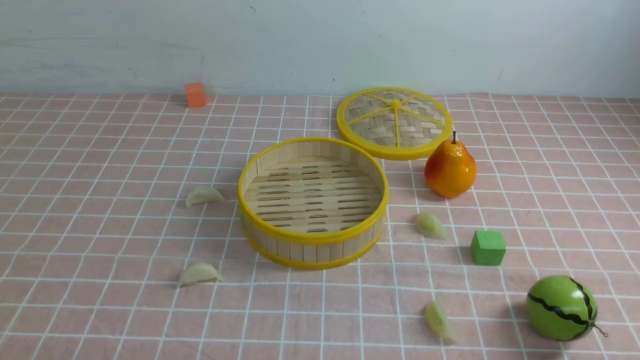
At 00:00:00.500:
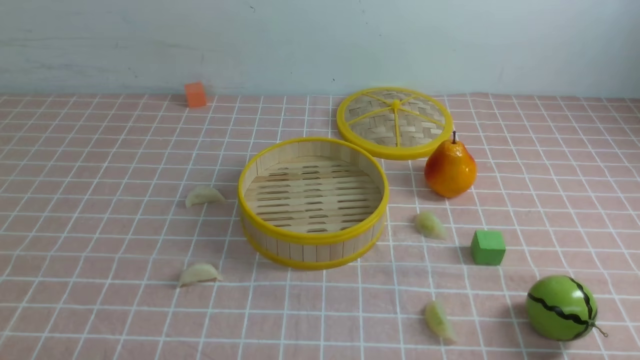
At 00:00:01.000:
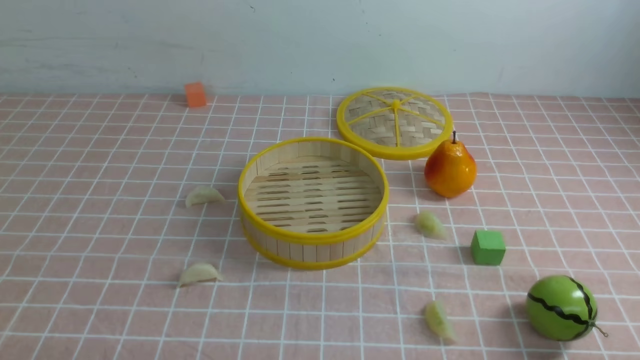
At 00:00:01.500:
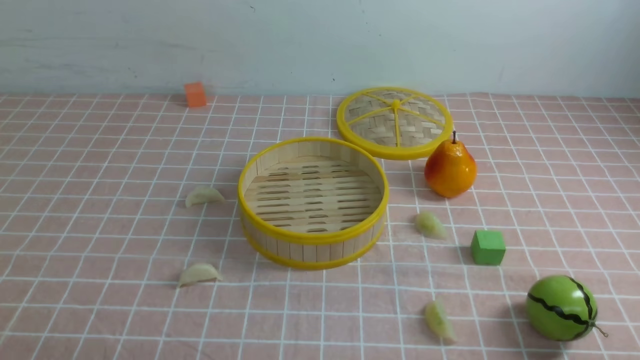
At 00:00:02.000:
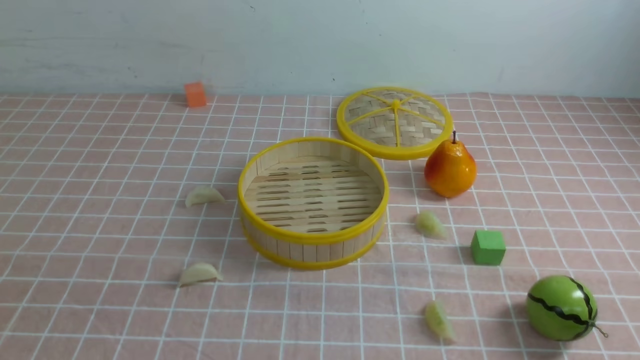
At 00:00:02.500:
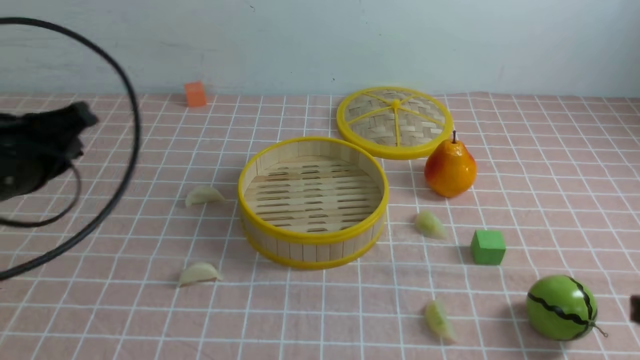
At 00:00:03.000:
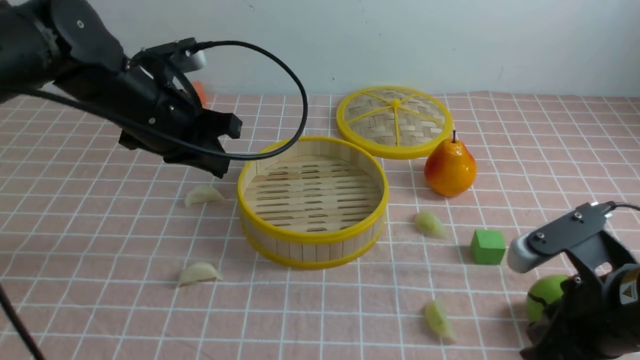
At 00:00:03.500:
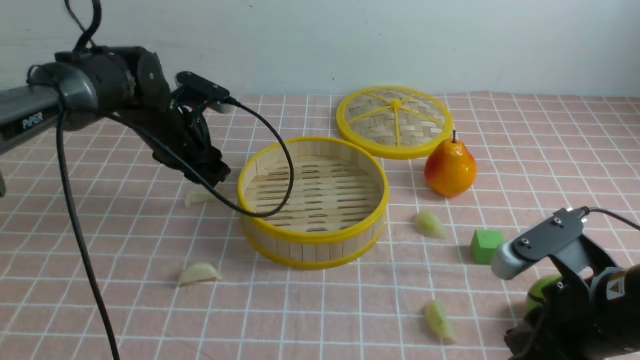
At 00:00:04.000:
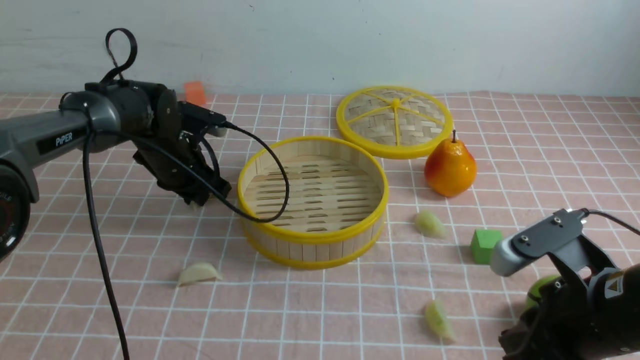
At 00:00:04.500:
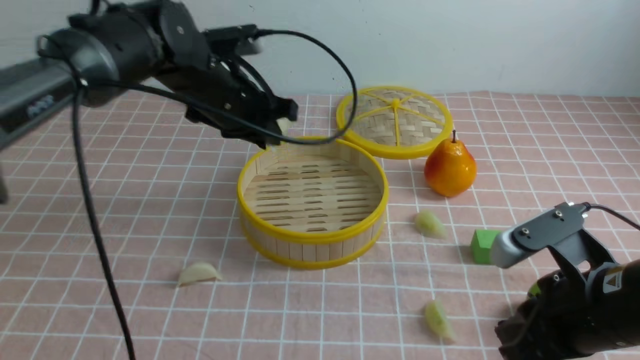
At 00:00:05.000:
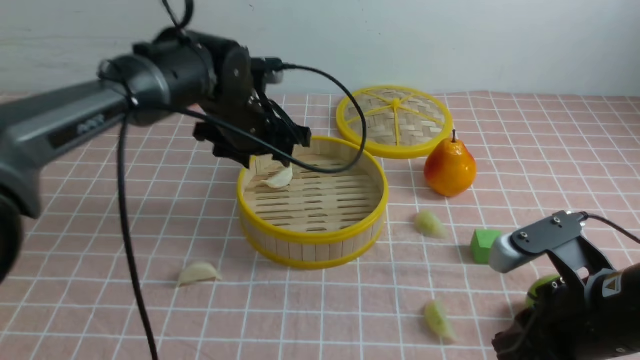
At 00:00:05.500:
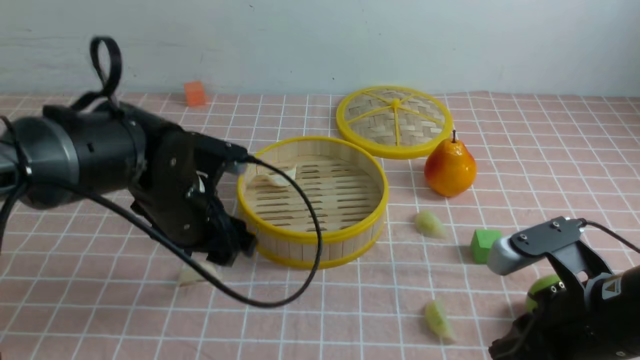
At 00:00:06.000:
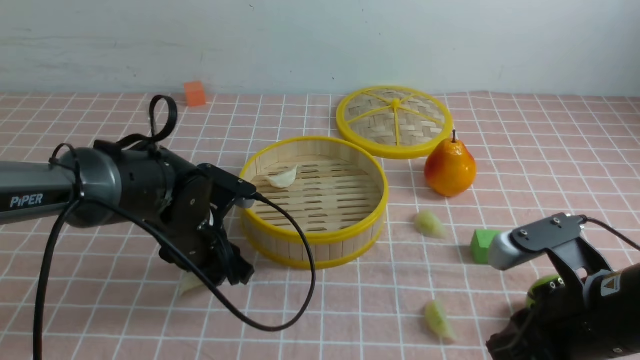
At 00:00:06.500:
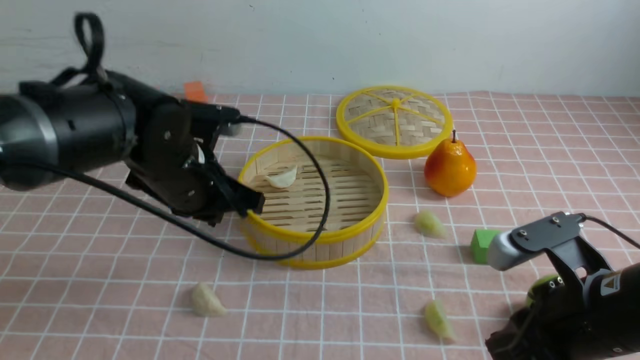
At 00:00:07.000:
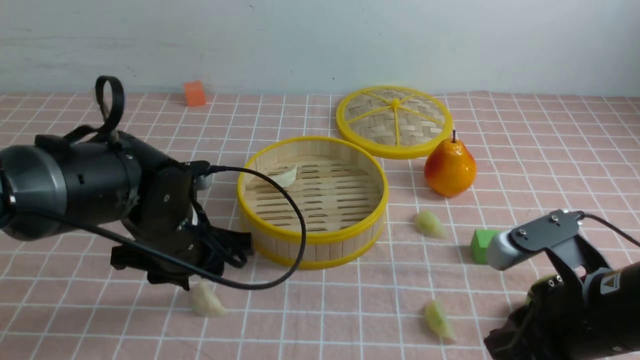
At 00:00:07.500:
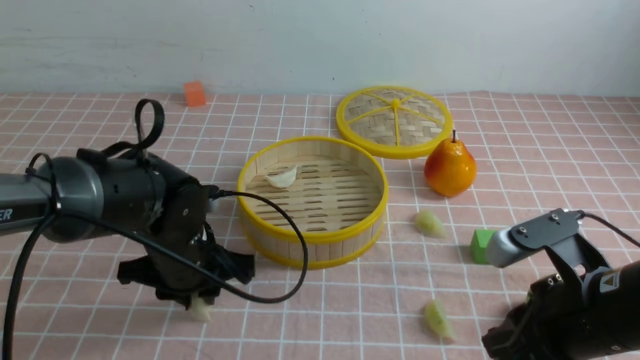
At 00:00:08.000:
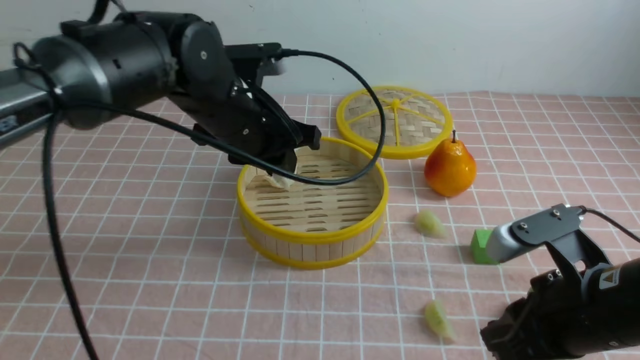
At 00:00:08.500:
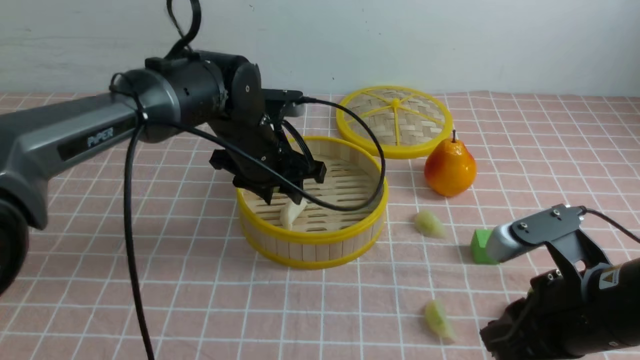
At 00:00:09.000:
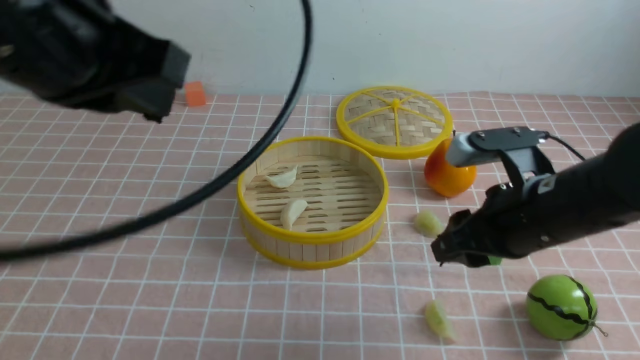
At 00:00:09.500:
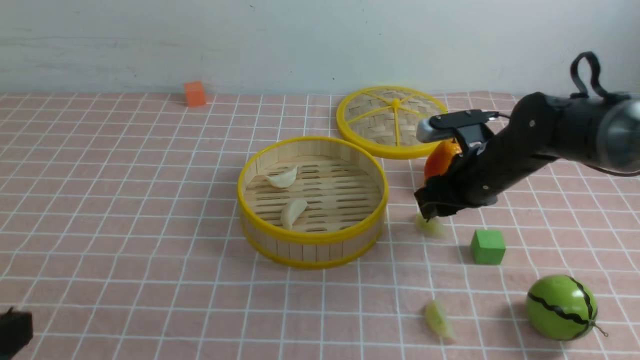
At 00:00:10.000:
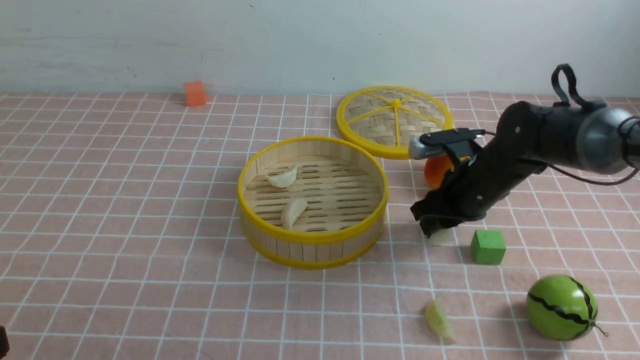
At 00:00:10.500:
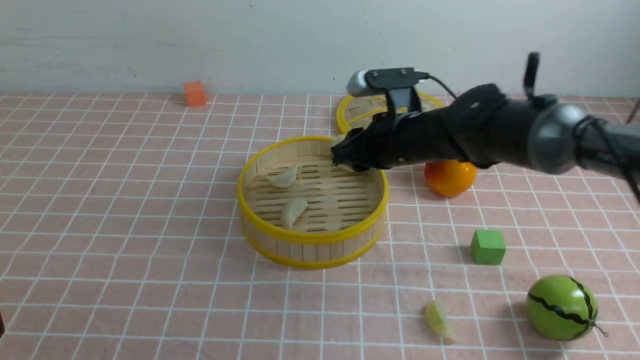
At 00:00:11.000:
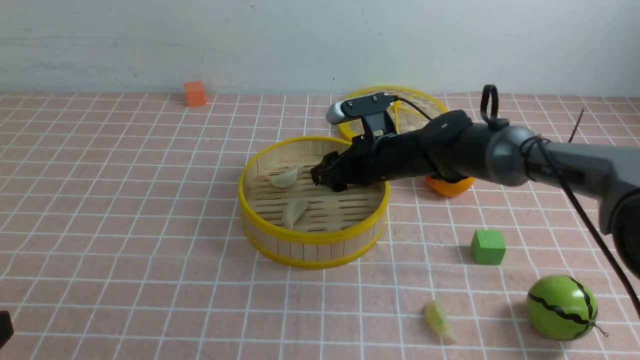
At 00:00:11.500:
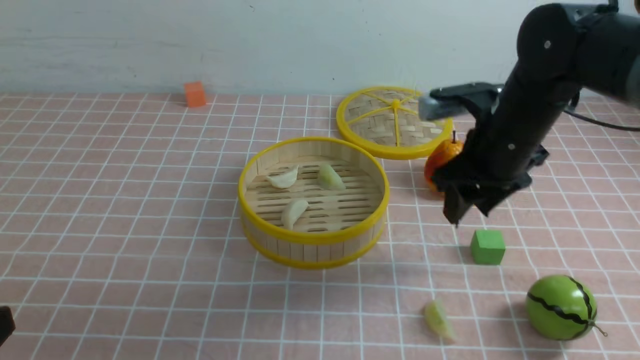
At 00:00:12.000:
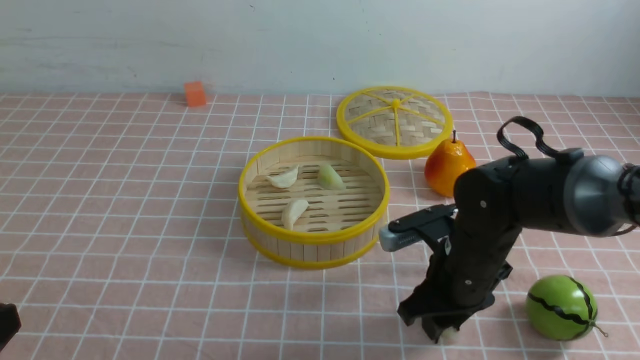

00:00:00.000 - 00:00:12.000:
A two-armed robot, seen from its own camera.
Task of the whole recording: put the dumplings into the steamer on the table with the pink tablecloth.
Step, 00:00:00.000 - 00:00:04.000: use the left arm to grab a dumpling.
Step, 00:00:04.500 - 00:00:05.000: use the left arm to put the dumpling into the steamer.
Step, 00:00:05.500 - 00:00:07.500: use the left arm to grab a dumpling.
Step, 00:00:08.000 - 00:00:08.500: use the left arm to put the dumpling into the steamer.
Step, 00:00:09.000 - 00:00:10.000: use the right arm to grab a dumpling.
Step, 00:00:10.500 - 00:00:11.000: use the right arm to put the dumpling into the steamer.
00:00:02.000 - 00:00:04.000: The right gripper is displaced forward, to the left and downward by about 20 cm, while the left gripper heads forward, covering about 40 cm.
00:00:04.000 - 00:00:06.000: The left gripper heads backward and to the right, covering some 15 cm, and opens, then closes once more.
00:00:06.000 - 00:00:08.000: The left gripper swings up and down, some 10 cm each way, with 2 reversals, and closes and opens again.
00:00:08.000 - 00:00:10.000: The left gripper is displaced backward and to the left by approximately 35 cm, and closes its fingers; the right gripper travels forward by some 20 cm.
00:00:10.000 - 00:00:12.000: The right gripper shifts some 10 cm backward.

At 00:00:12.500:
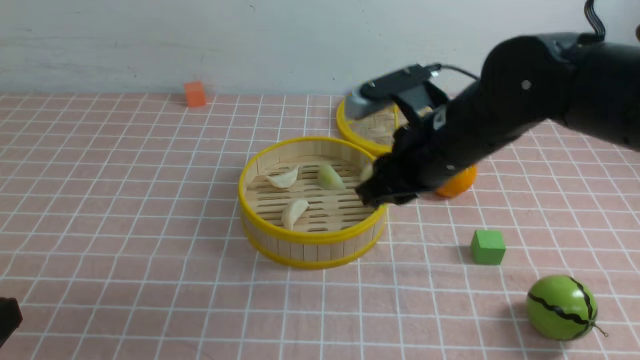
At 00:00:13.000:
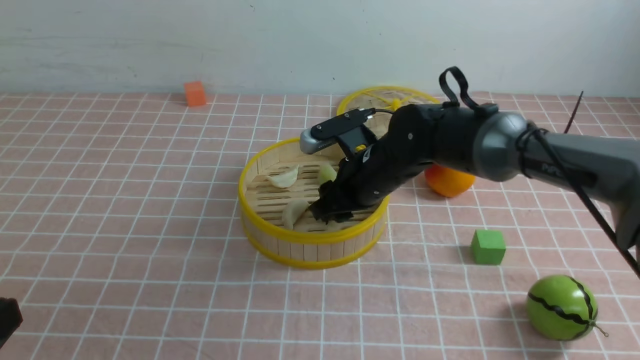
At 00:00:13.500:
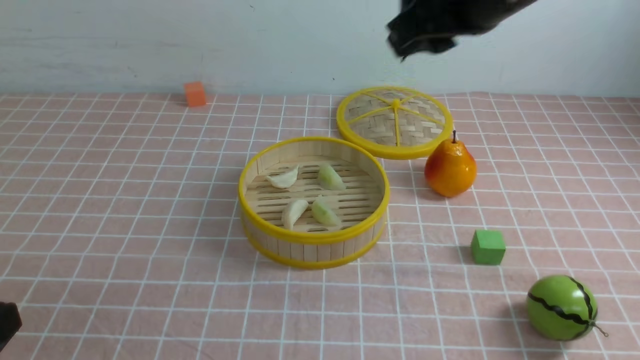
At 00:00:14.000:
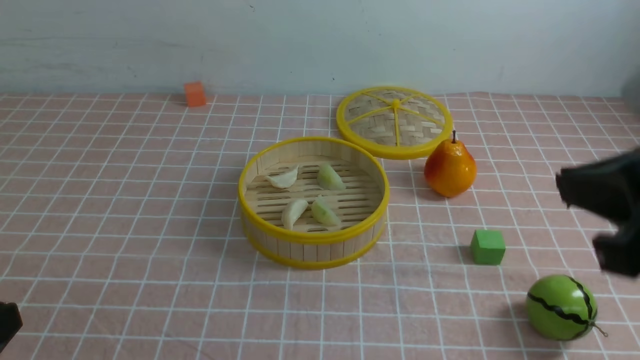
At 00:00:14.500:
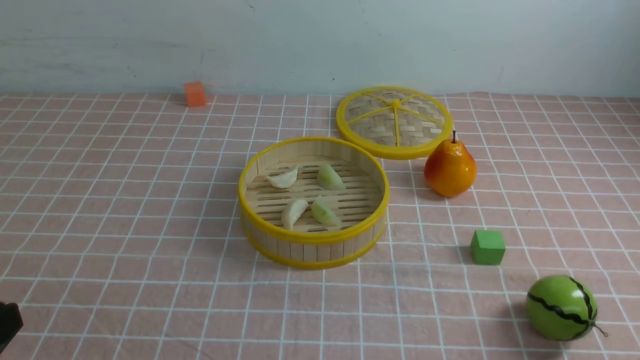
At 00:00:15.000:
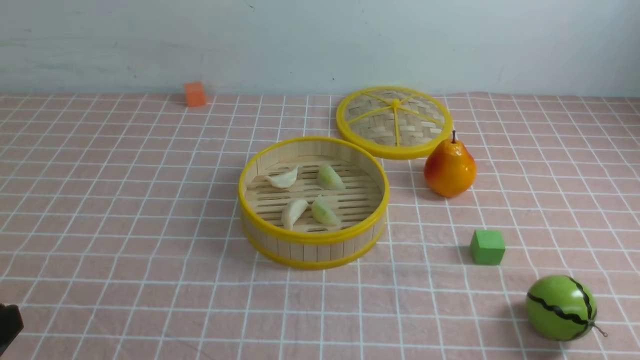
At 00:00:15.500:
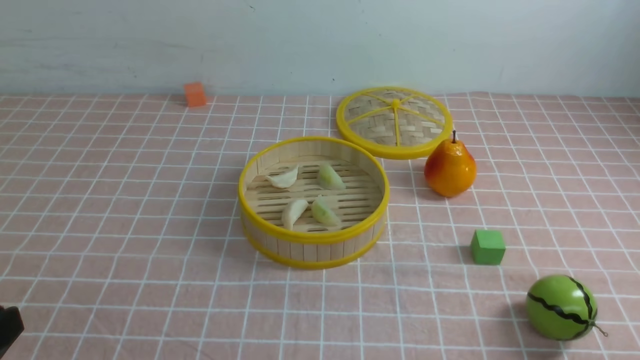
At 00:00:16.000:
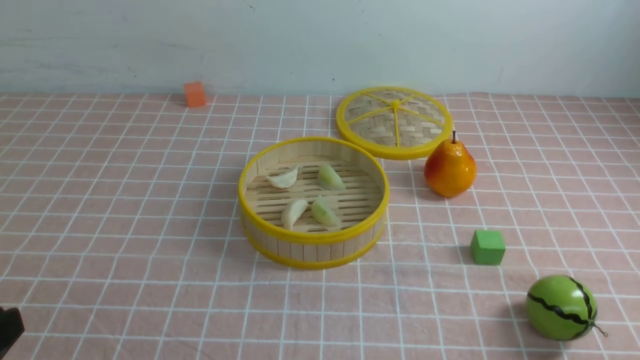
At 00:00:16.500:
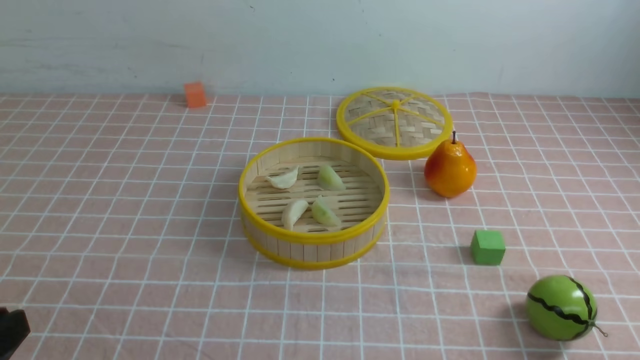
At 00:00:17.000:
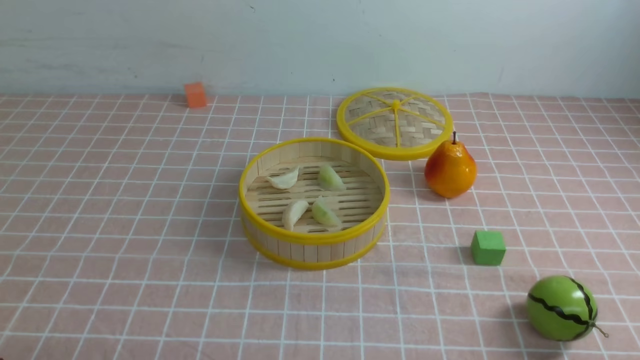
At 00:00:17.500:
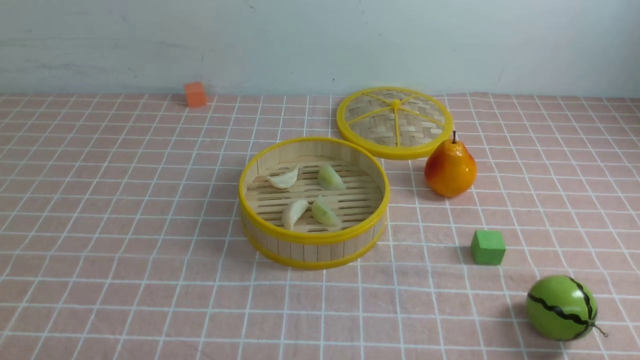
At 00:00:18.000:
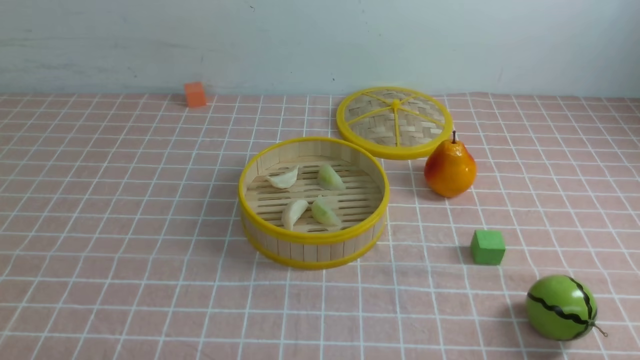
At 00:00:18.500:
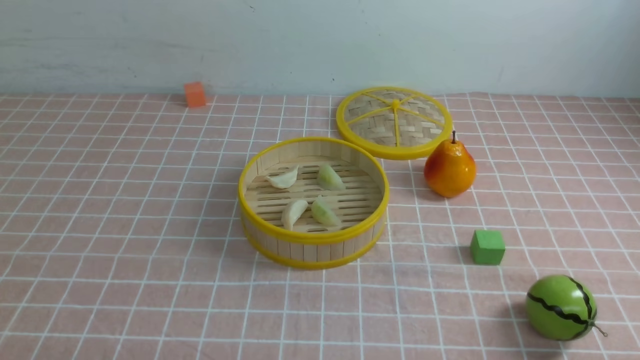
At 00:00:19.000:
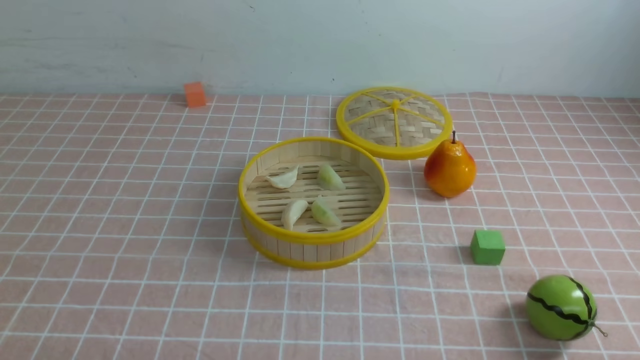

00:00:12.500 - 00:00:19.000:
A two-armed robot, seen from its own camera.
Task of the whole recording: put the dumplings into the steamer on the table with the pink tablecloth.
Step, 00:00:12.500 - 00:00:13.500: use the right arm to put the dumpling into the steamer.
00:00:12.500 - 00:00:14.500: The right gripper heads backward and to the right, covering some 30 cm, and closes its fingers.
00:00:14.500 - 00:00:17.000: The left gripper goes some 10 cm downward.

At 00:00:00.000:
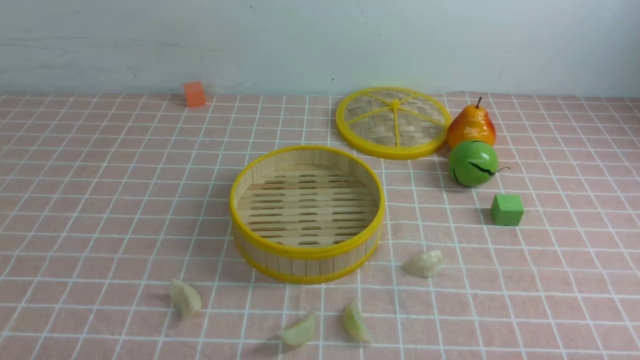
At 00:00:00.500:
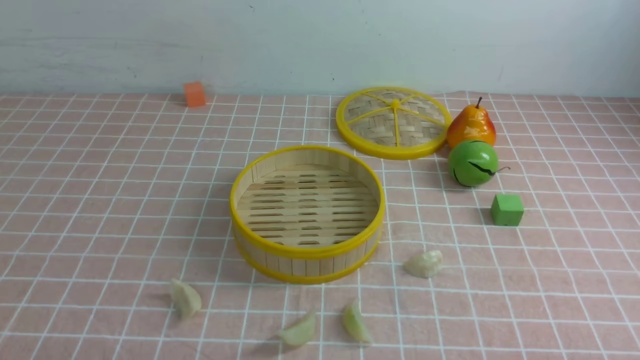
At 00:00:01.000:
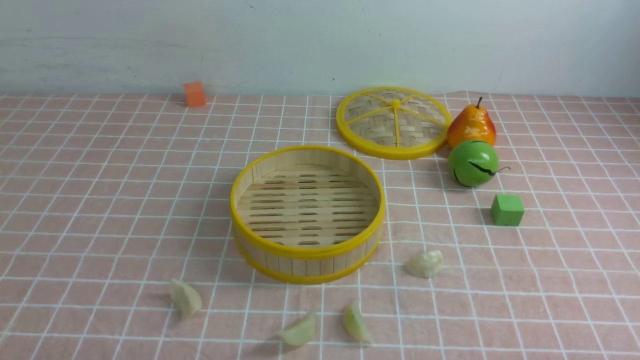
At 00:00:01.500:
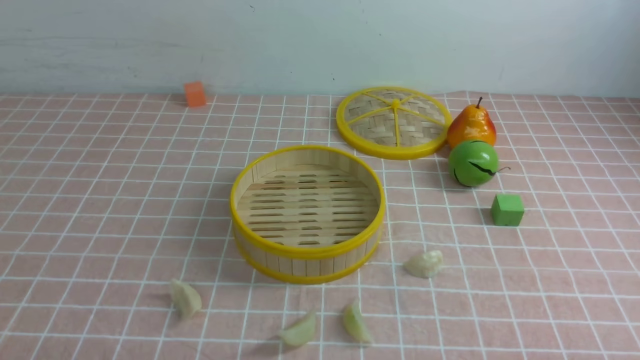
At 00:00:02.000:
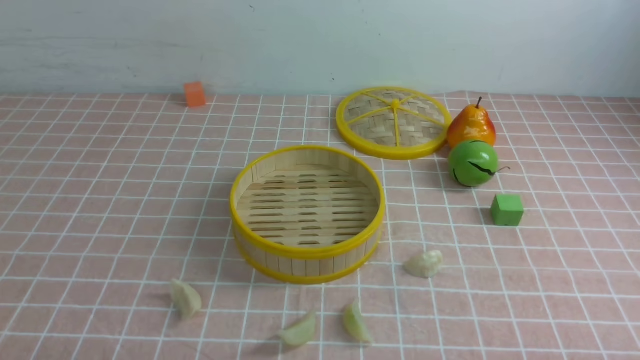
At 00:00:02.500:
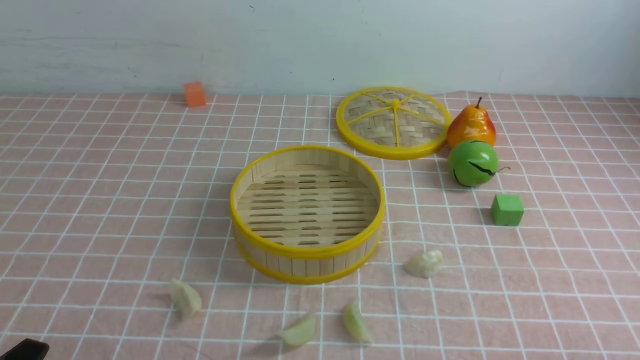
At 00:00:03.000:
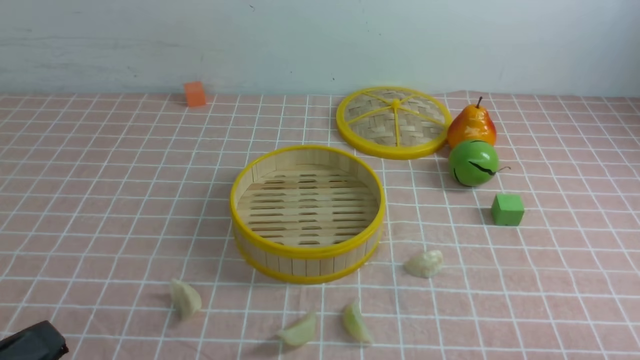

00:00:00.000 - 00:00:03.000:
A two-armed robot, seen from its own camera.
Task of the whole recording: put the dumplings into the steamer on the table with the pink tablecloth.
00:00:01.500 - 00:00:03.000: The left gripper is displaced upward by about 5 cm.
